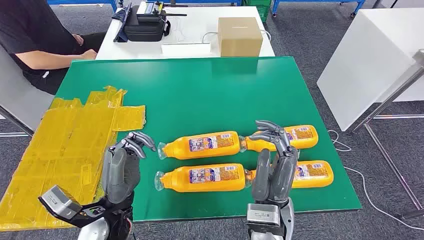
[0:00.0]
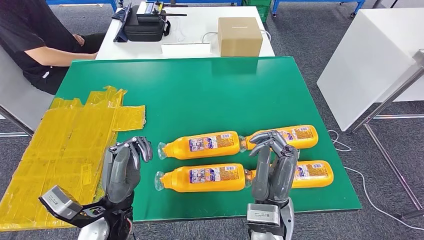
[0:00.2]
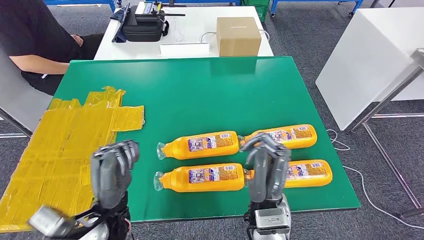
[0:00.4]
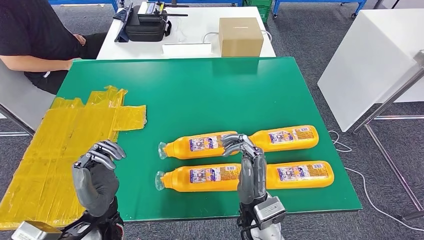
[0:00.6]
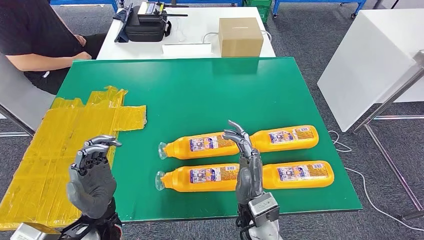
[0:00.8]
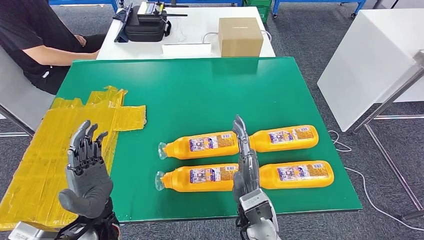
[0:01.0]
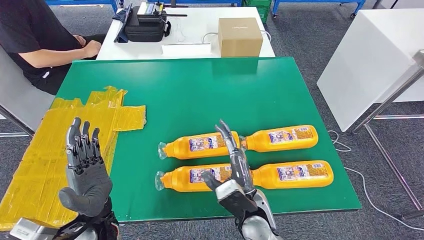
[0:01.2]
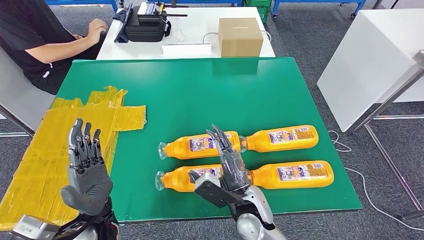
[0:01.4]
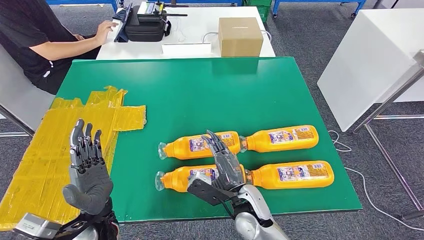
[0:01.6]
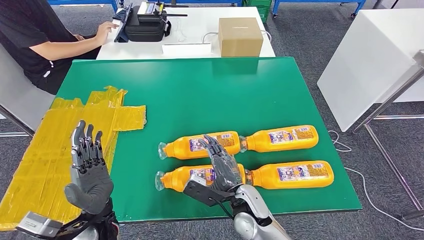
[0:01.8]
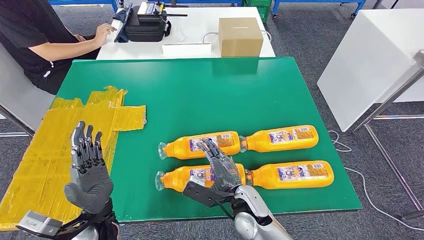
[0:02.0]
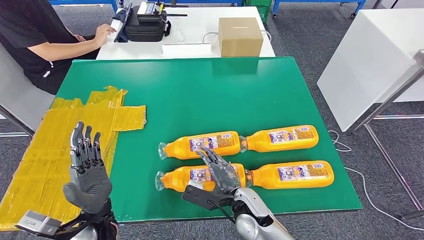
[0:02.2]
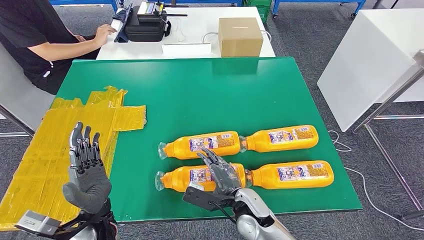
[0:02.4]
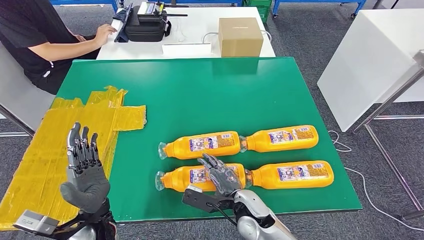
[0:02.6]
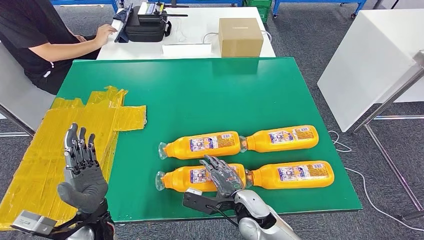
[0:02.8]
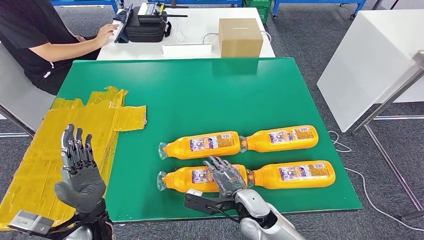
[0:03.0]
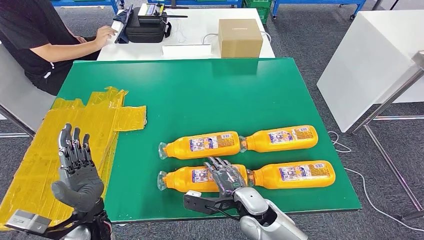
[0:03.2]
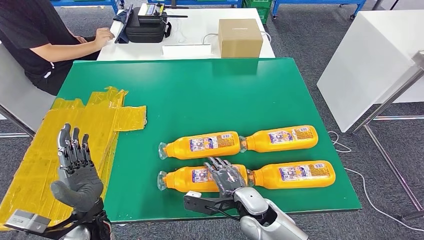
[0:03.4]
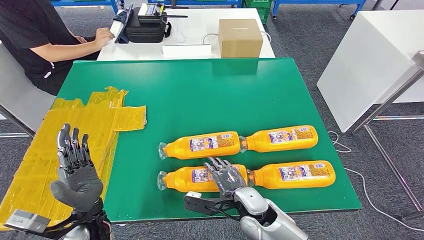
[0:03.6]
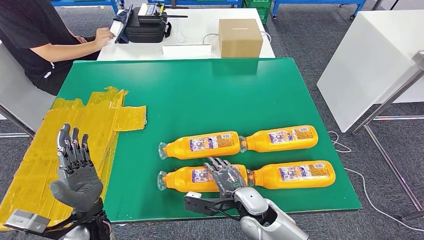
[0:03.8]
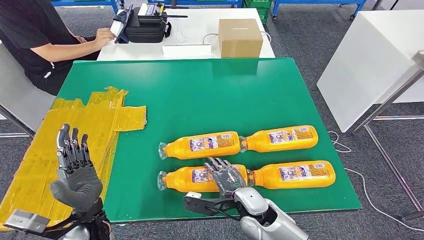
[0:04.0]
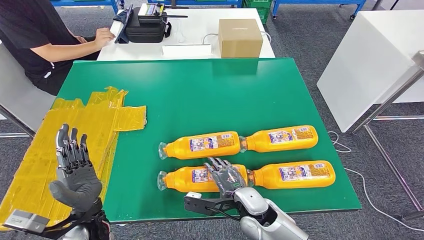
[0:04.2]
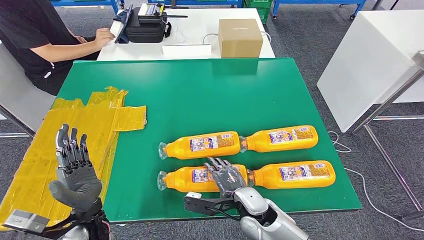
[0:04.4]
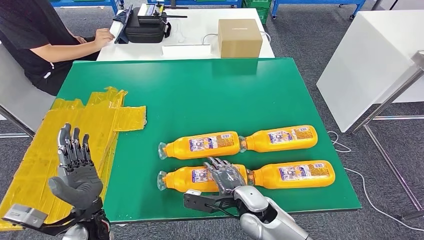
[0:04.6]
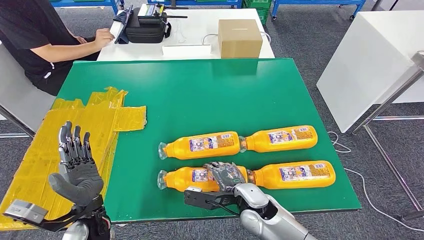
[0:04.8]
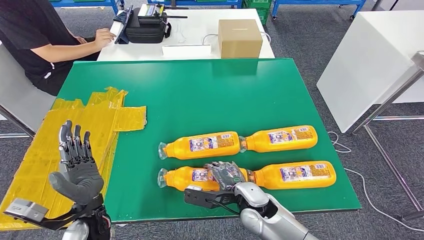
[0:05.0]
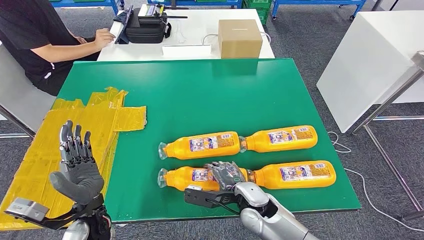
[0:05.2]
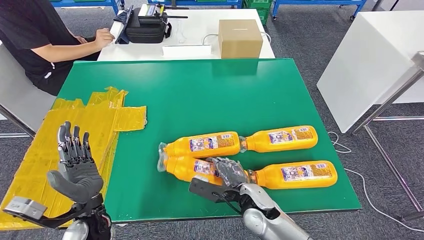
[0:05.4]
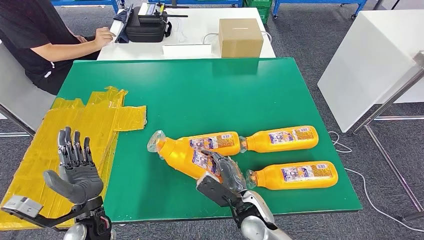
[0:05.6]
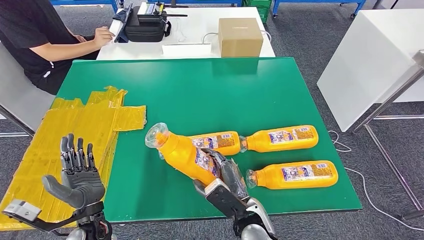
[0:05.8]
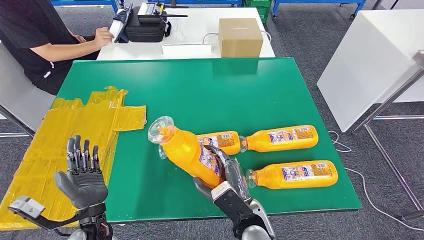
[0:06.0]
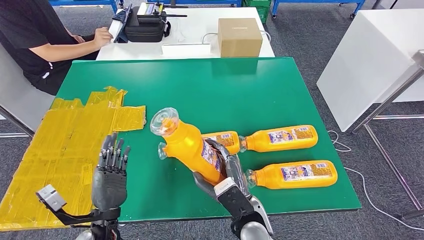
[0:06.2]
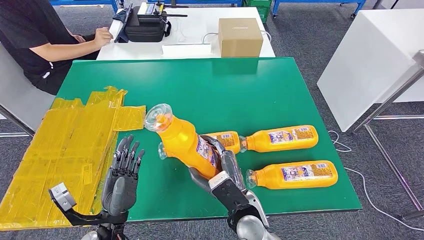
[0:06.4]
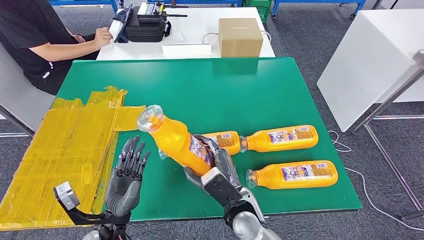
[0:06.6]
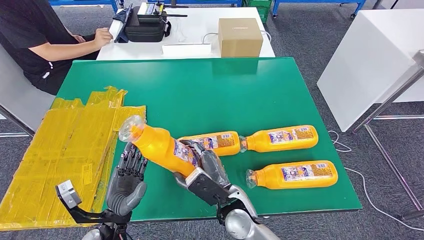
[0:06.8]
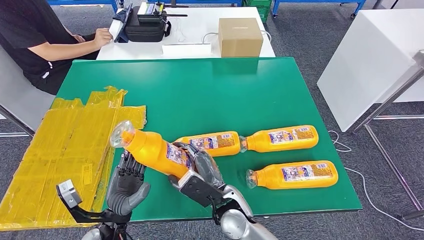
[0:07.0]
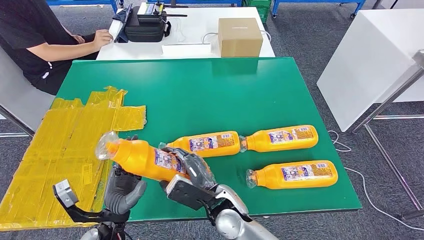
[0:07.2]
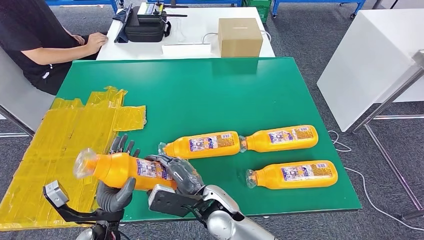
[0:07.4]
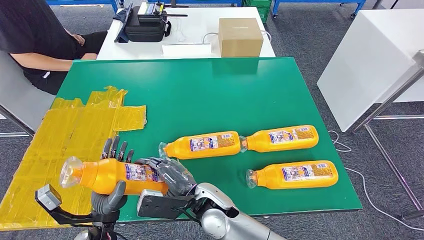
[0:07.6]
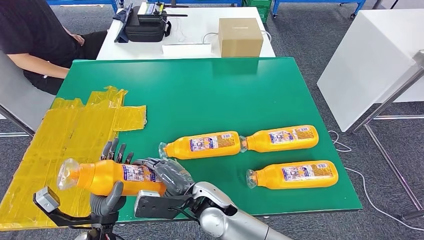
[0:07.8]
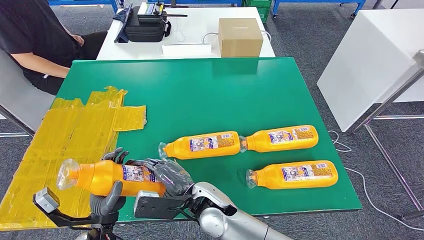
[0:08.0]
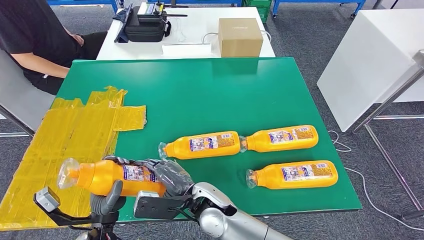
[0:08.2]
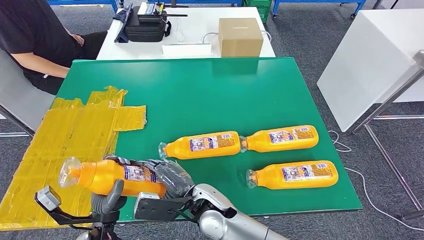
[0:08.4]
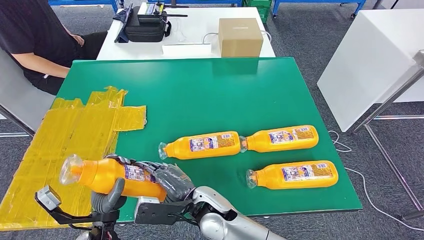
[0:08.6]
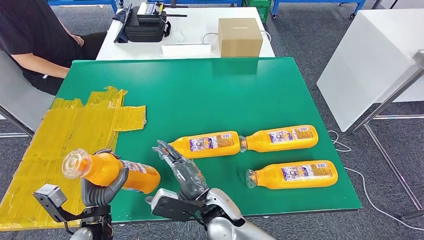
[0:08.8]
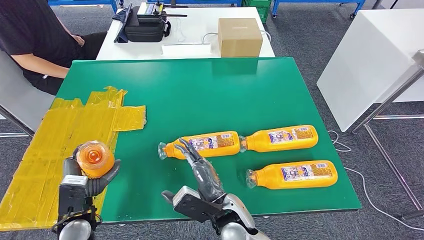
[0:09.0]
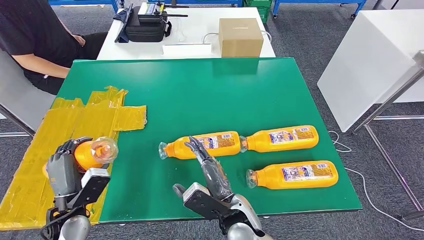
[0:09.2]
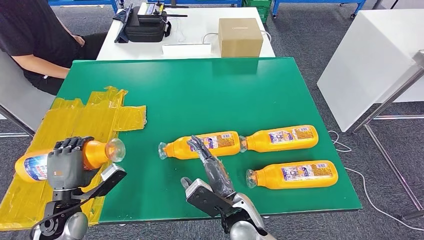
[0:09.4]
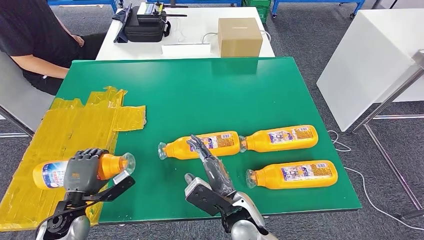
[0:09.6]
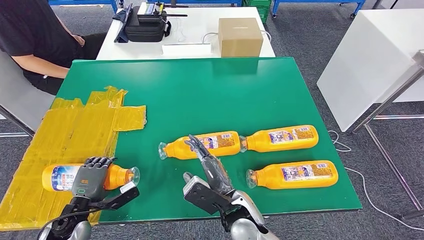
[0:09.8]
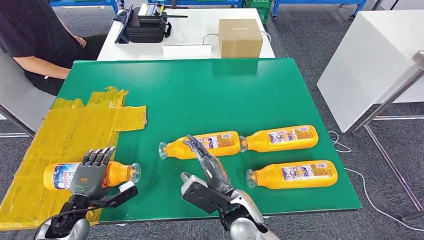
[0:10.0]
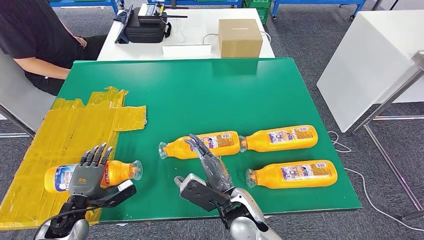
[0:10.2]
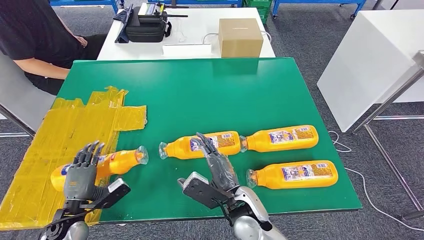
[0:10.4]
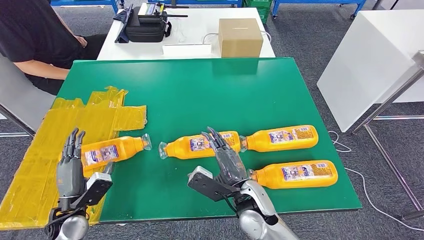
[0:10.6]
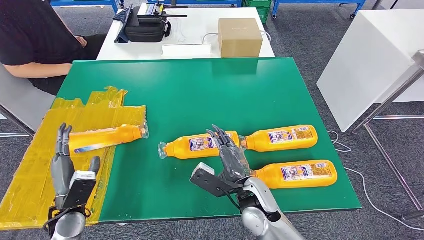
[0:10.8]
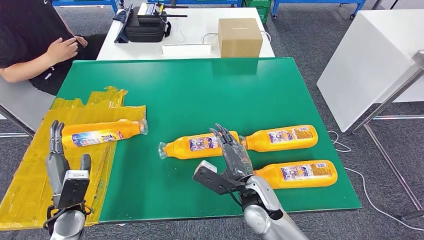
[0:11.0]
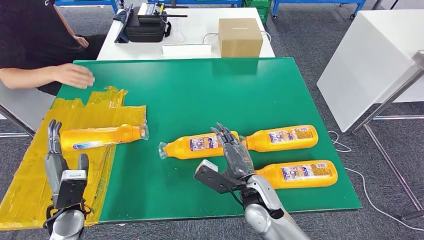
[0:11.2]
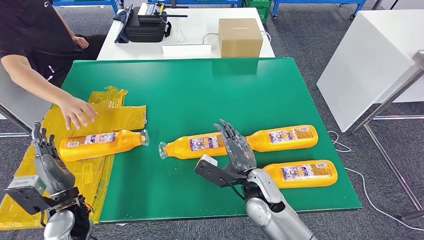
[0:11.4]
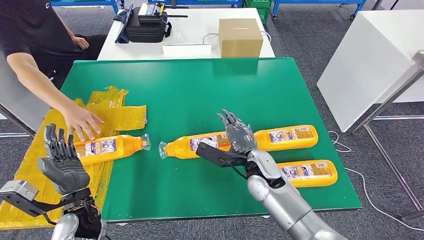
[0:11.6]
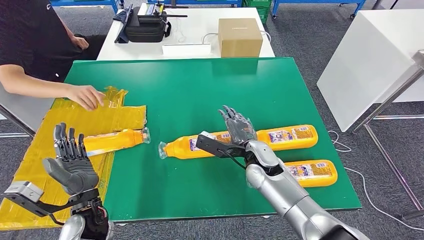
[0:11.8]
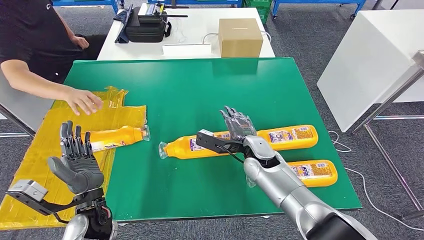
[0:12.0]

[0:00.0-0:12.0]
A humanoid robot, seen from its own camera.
Step, 0:00.0 to 0:06.6: Take the fast-moving consumer goods bottle from the table.
Step, 0:07.0 to 0:10.2: Flip the fast-moving consumer goods bottle to the front side.
0:03.0 to 0:04.4: There are only small adjustments of the hands.
0:06.0 to 0:07.6: The right hand travels to the left by roughly 10 cm.
0:07.6 to 0:09.0: The left hand goes some 5 cm to the left. The right hand shifts some 5 cm to the right.
0:09.0 to 0:10.4: The left hand shifts some 10 cm to the left and downward.
0:10.4 to 0:12.0: The right hand moves forward, roughly 15 cm, while the left hand travels to the right and upward by some 15 cm.

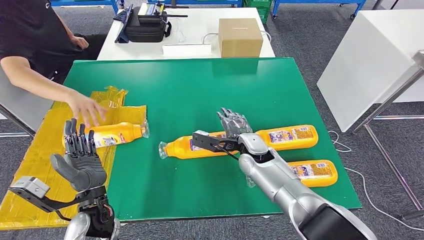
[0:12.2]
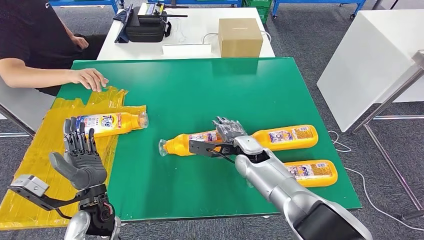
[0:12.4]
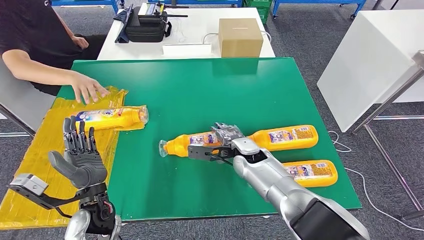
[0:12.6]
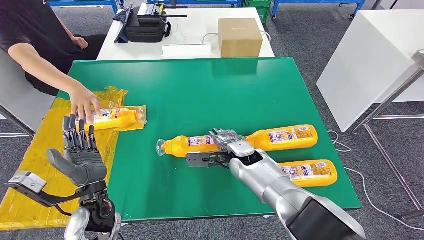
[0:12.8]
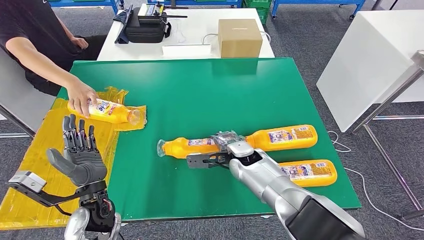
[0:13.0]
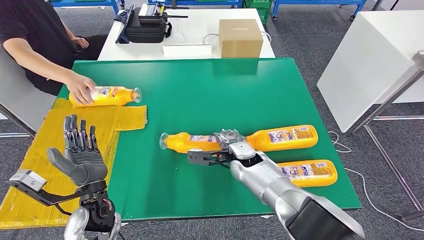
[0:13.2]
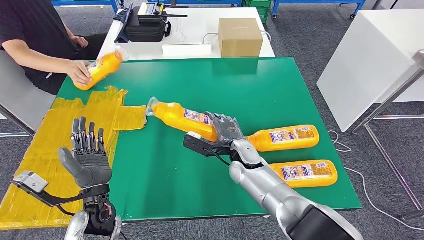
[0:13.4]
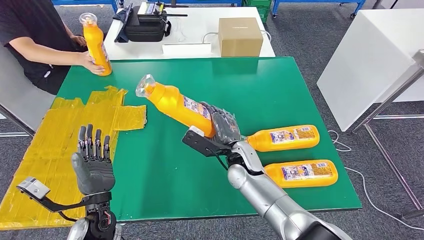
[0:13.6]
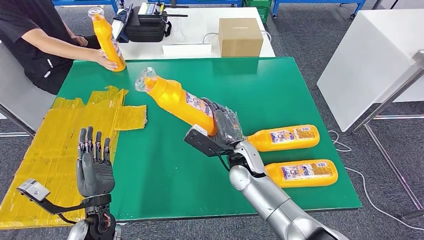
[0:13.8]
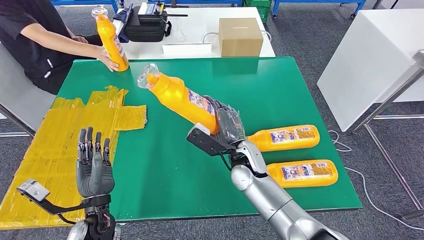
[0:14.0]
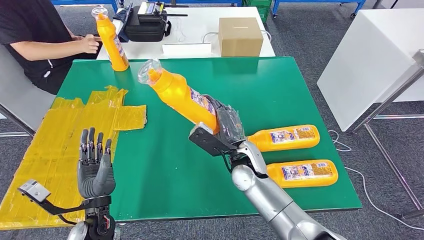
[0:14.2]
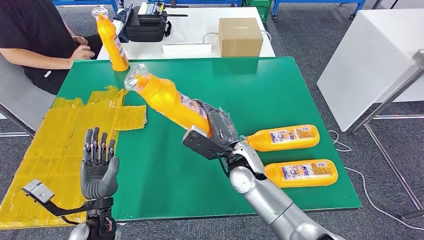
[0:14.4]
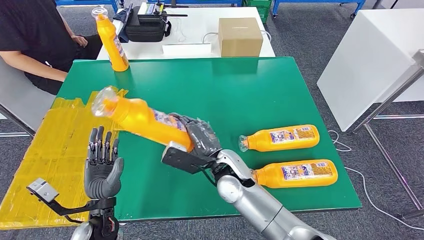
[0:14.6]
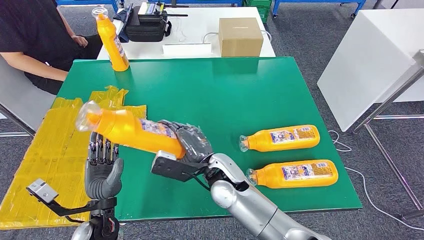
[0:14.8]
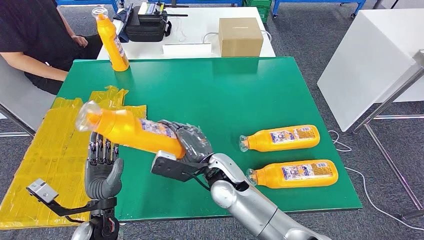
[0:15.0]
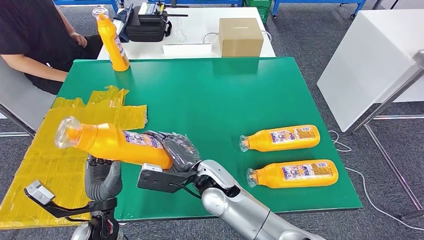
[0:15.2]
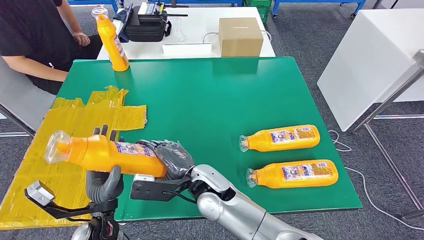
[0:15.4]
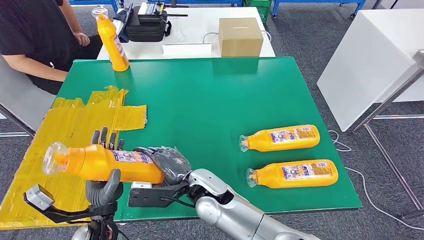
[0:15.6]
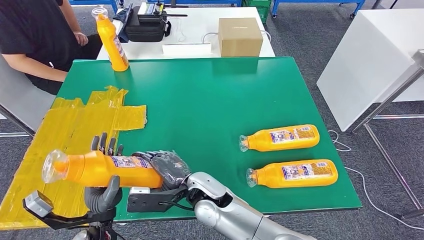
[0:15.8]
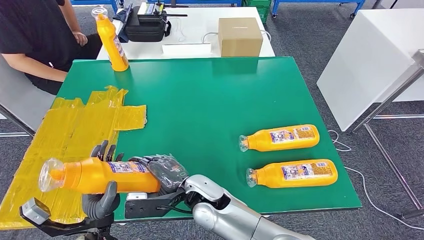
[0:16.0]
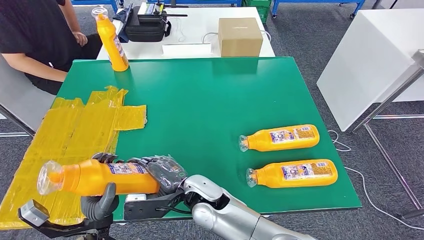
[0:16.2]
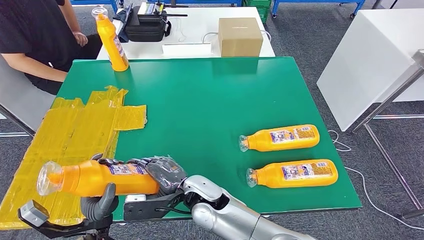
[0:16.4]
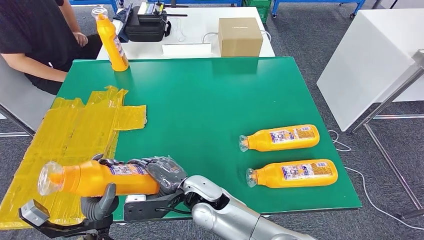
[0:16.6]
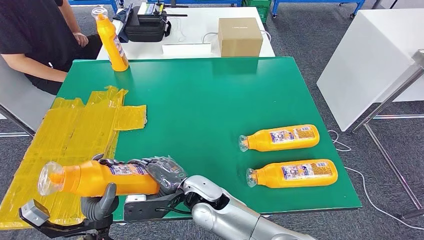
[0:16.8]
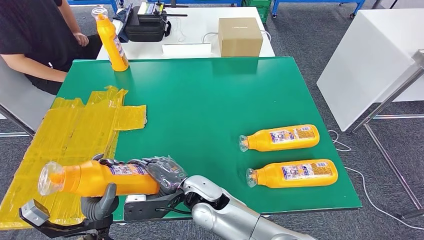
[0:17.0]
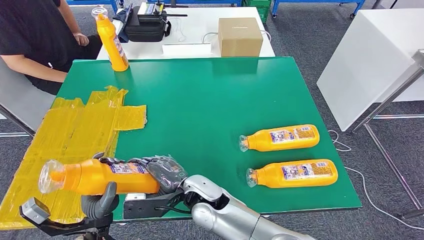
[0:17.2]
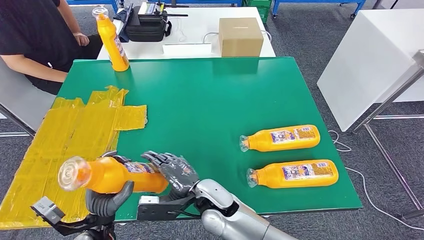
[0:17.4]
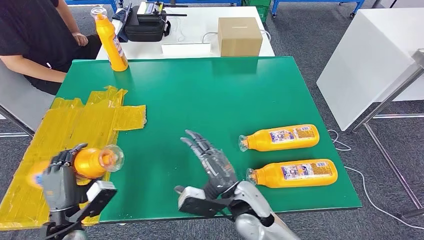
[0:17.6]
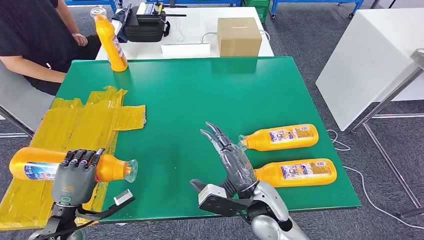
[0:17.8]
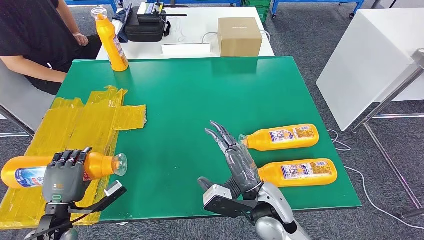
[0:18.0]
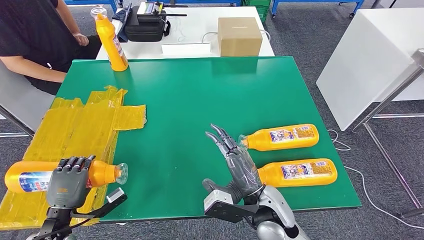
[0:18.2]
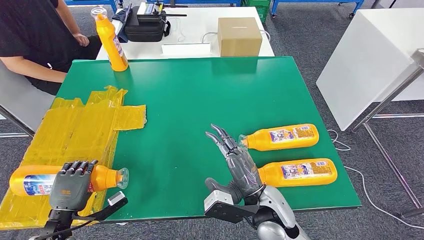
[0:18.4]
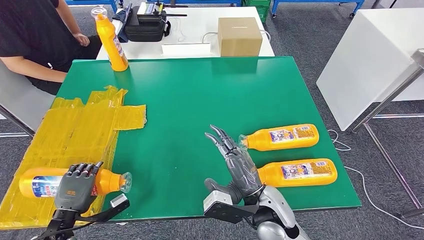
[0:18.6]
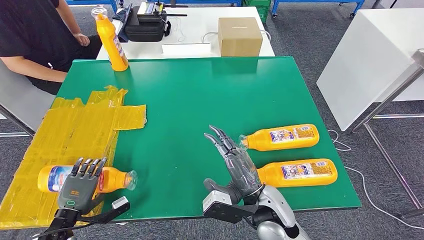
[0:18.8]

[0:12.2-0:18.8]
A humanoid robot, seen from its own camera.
Step, 0:12.2 to 0:15.2: Pick up the fast-moving consumer goods bottle from the table.
0:15.4 to 0:17.2: The hands move only a little.
0:17.2 to 0:18.8: The right hand shifts about 15 cm to the right; the left hand goes roughly 10 cm to the left.
